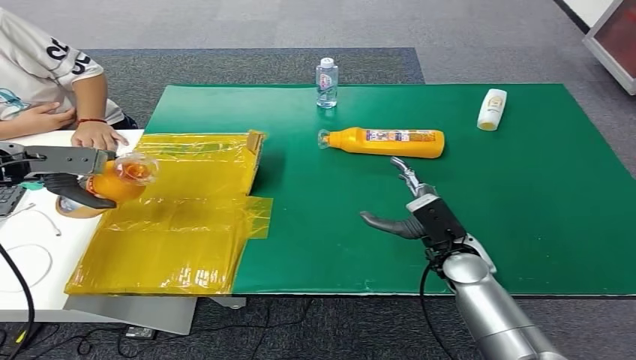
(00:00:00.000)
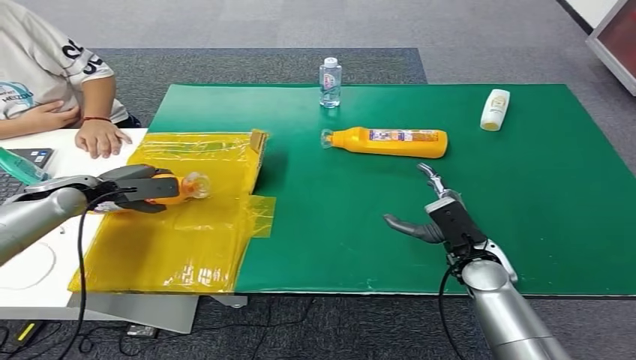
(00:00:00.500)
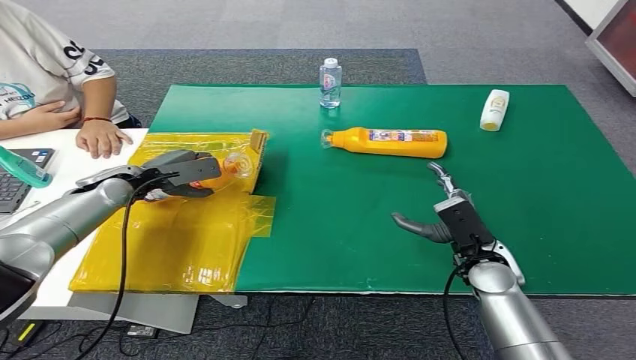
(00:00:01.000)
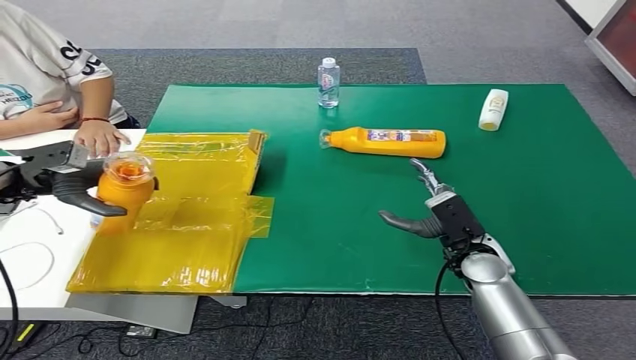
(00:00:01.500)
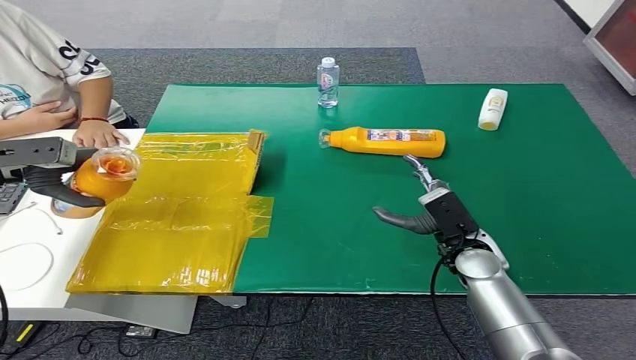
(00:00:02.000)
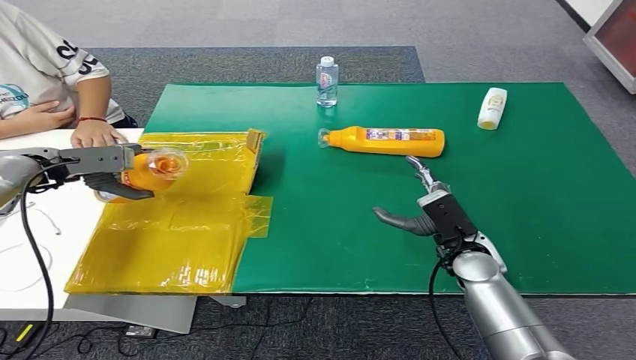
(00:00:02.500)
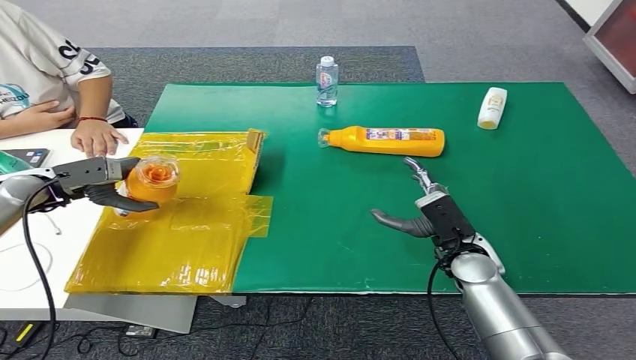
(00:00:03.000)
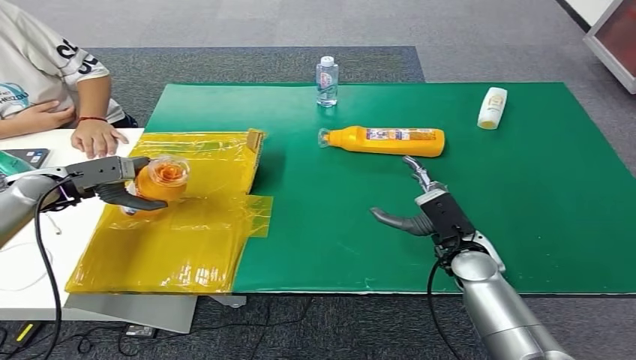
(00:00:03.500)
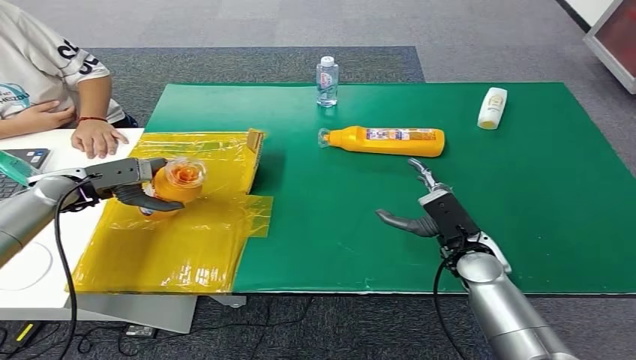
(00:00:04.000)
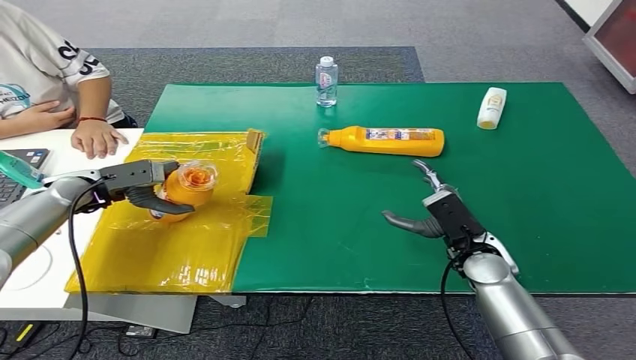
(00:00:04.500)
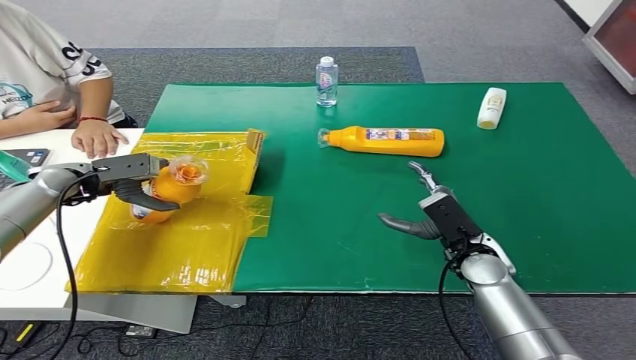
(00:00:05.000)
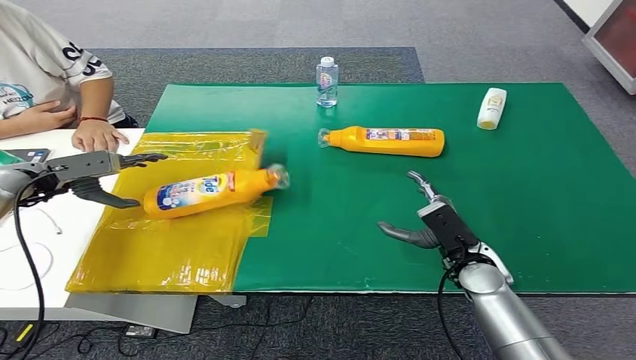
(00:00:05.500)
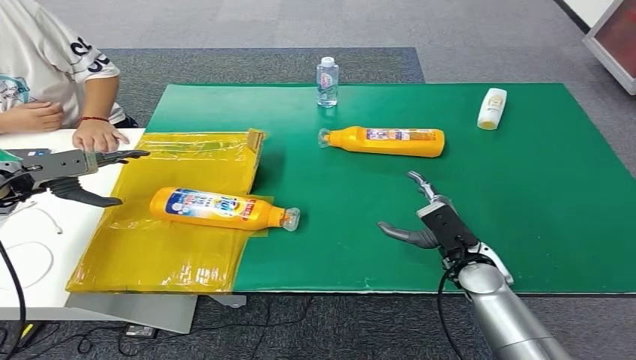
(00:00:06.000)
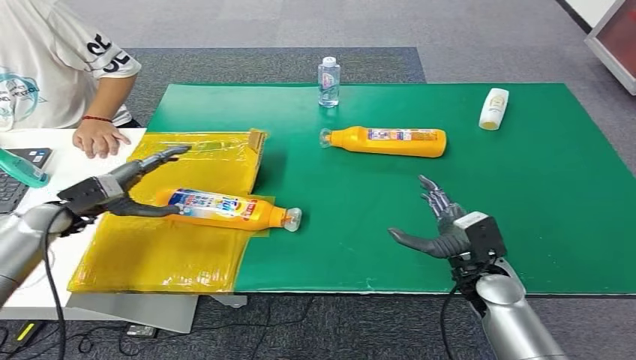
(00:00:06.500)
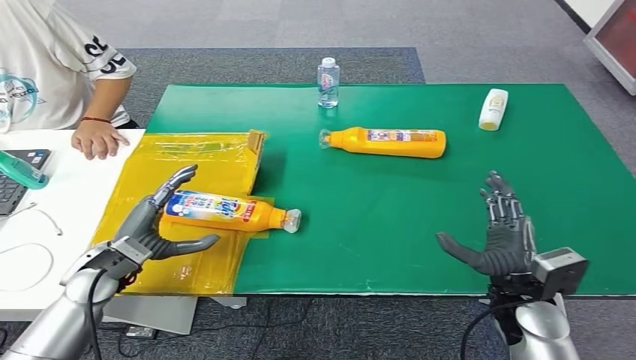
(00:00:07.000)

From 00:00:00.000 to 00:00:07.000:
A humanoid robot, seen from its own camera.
Step, from 00:00:00.000 to 00:00:07.000: Turn the bottle to the front side.
From 00:00:00.000 to 00:00:02.000: The left hand reaches approximately 10 cm to the right, then returns.
From 00:00:02.000 to 00:00:03.500: The left hand goes about 10 cm downward and to the right.
From 00:00:03.500 to 00:00:05.000: The hands make only small movements.
